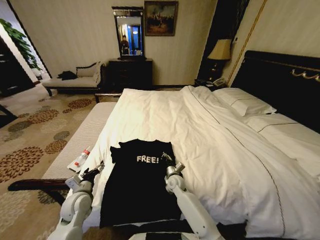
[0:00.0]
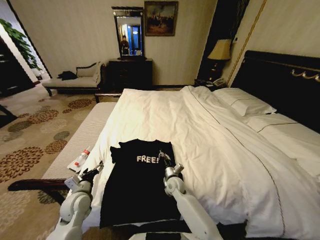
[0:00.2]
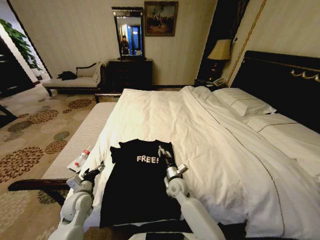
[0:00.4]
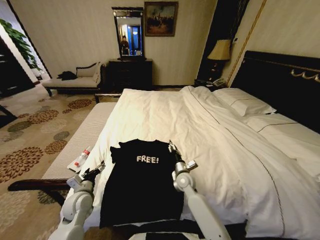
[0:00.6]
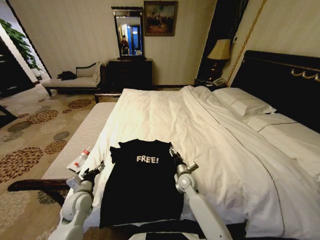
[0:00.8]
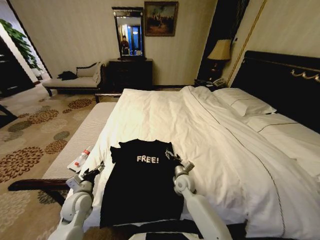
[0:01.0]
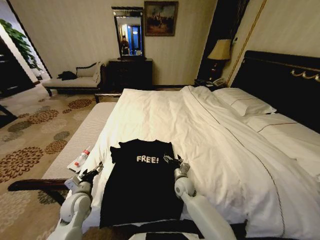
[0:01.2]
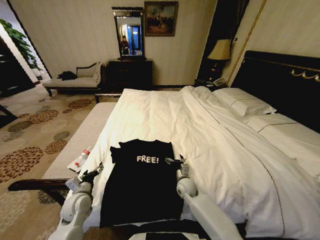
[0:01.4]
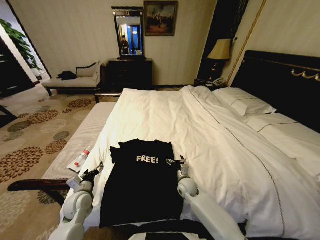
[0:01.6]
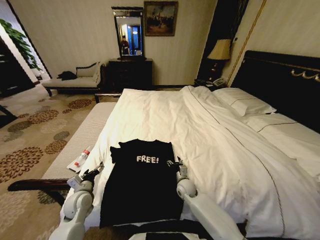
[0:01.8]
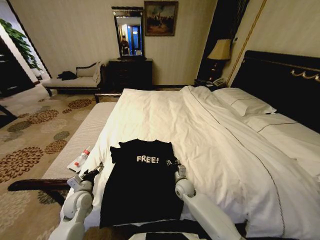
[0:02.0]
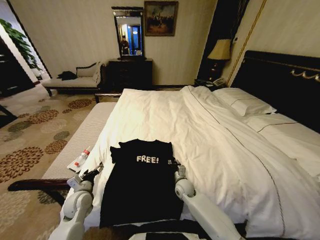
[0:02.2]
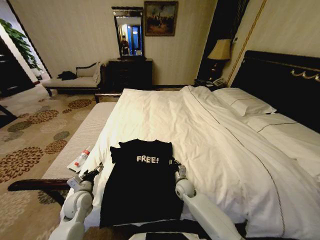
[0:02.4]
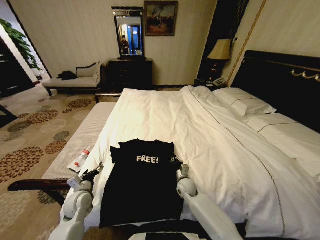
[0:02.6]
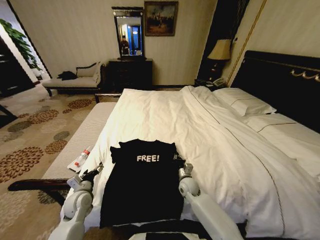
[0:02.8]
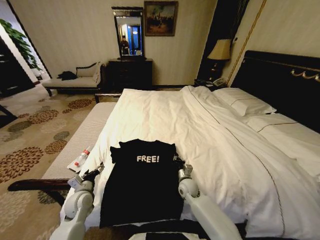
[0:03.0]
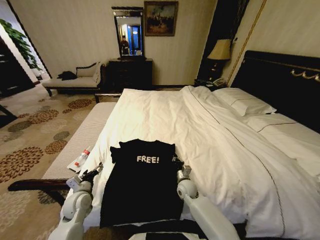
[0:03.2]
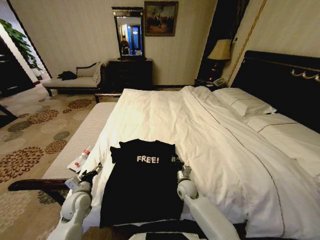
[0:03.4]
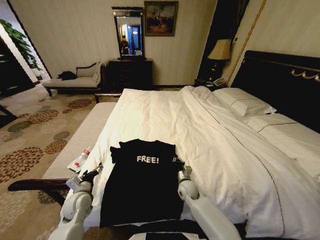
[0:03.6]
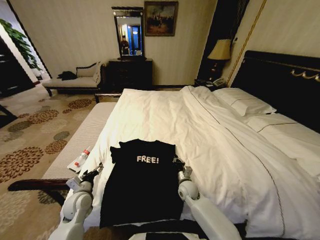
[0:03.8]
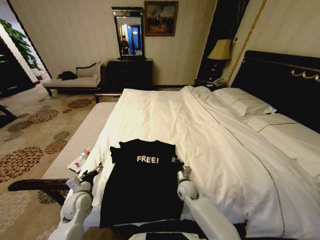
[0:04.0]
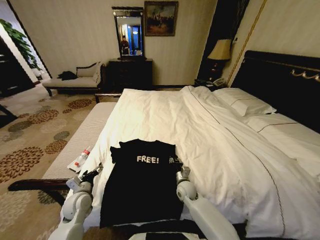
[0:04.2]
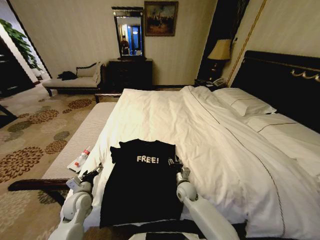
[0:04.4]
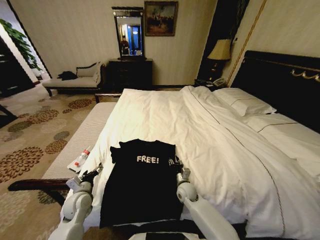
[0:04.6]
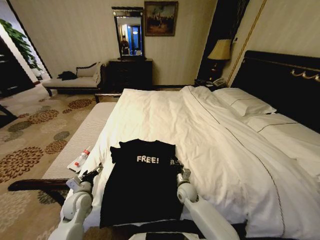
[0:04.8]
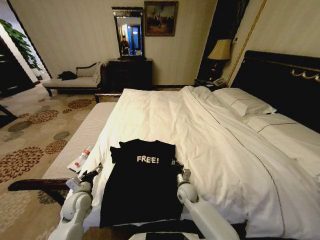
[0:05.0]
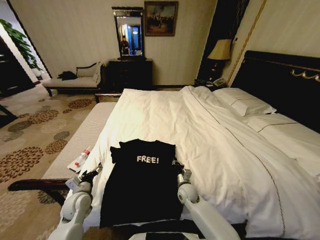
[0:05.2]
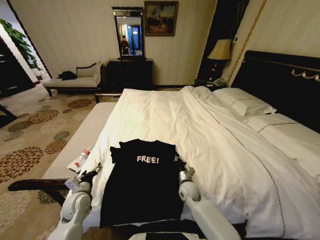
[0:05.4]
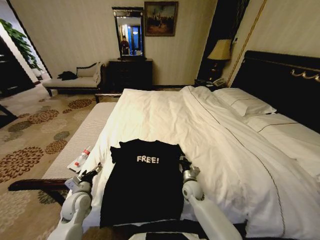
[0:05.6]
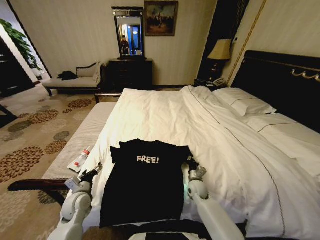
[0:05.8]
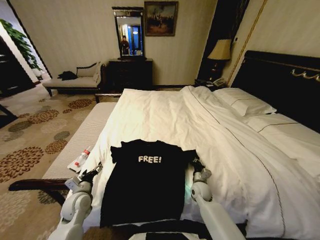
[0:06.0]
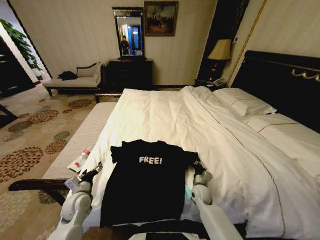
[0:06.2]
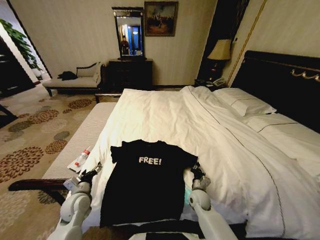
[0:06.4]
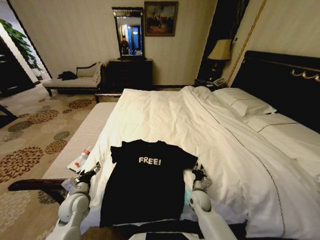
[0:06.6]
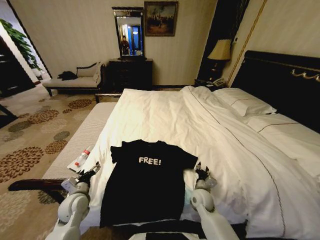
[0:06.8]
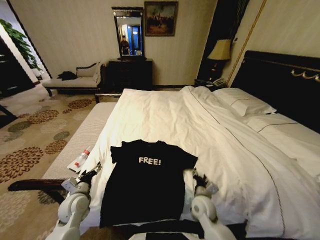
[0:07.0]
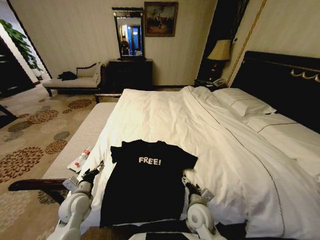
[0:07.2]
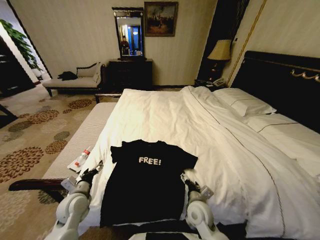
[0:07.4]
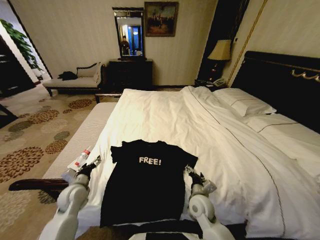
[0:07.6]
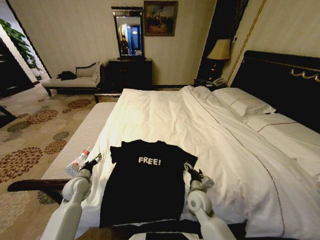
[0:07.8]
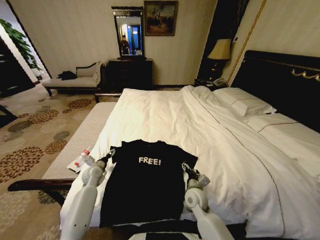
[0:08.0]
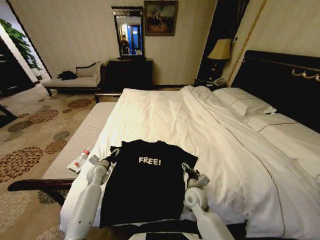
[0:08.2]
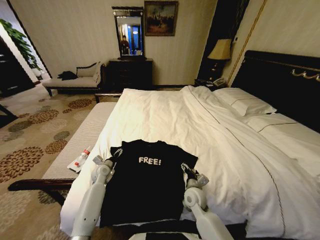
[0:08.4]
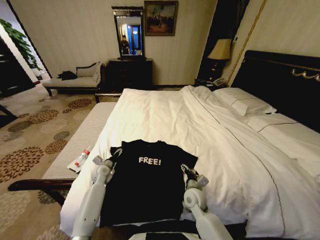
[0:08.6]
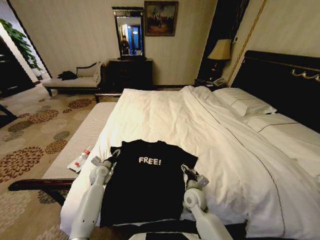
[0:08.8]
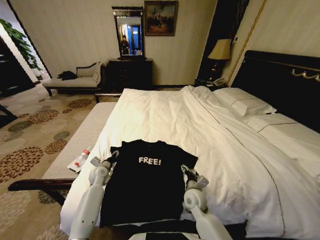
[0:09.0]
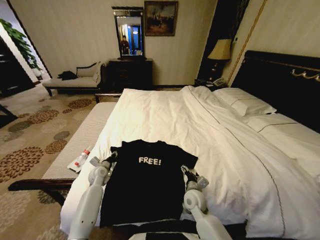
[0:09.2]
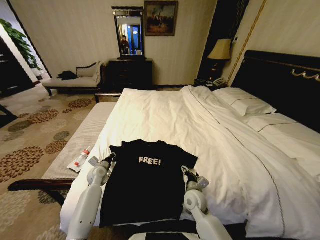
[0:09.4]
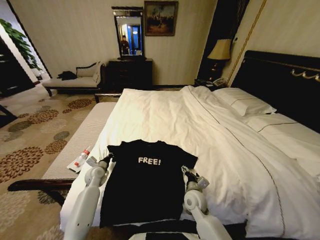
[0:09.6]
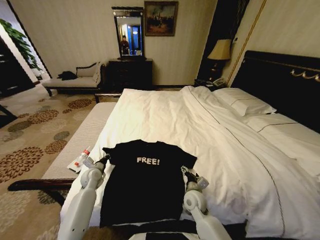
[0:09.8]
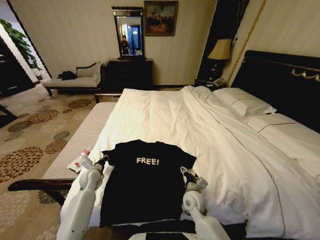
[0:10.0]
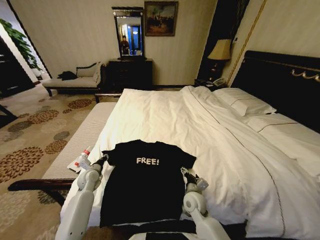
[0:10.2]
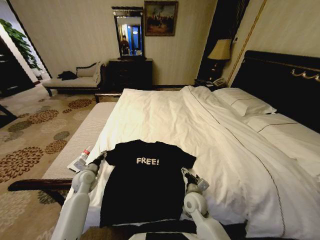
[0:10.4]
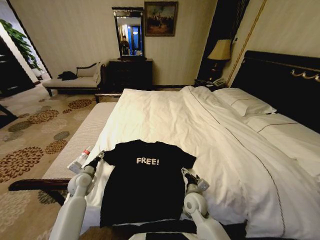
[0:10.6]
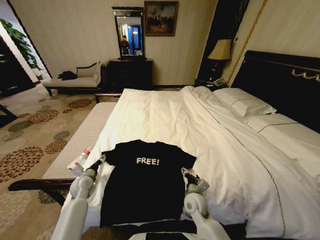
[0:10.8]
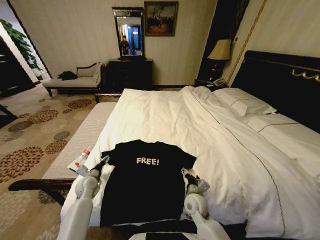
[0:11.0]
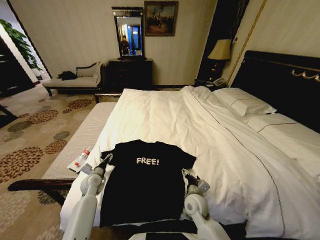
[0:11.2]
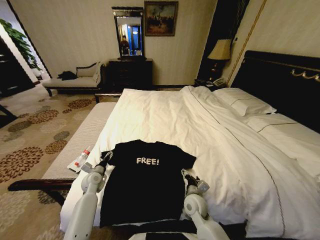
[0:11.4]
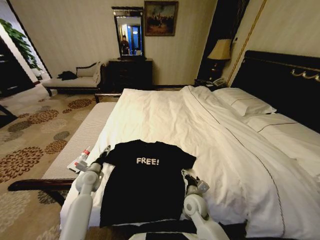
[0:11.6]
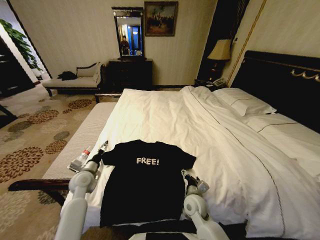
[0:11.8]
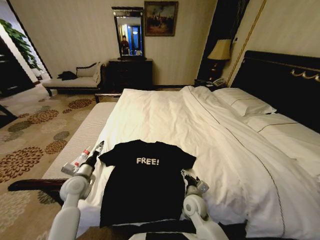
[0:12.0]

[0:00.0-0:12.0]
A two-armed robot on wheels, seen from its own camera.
Task of the whole recording: Fold the clothes on the bed.
0:00.0 to 0:01.6: The right gripper heads to the right, covering some 5 cm, and opens its fingers.
0:01.6 to 0:03.0: The right gripper closes up.
0:03.0 to 0:04.4: The right gripper opens its fingers.
0:04.4 to 0:06.0: The right gripper goes roughly 10 cm to the right, and closes.
0:06.0 to 0:07.6: The right gripper heads backward and upward, covering some 10 cm, and opens its fingers.
0:07.6 to 0:09.0: The left gripper shifts about 15 cm forward and downward, and closes its fingers.
0:09.0 to 0:10.4: The left gripper changes place by approximately 5 cm, and closes, then reopens.
0:10.4 to 0:12.0: The left gripper travels backward and upward by some 10 cm, and opens its fingers.

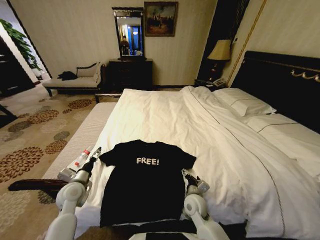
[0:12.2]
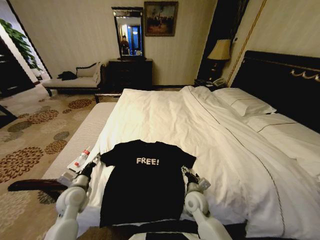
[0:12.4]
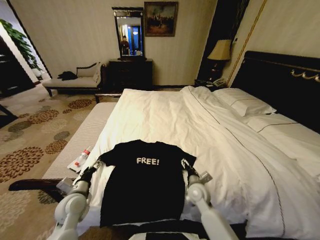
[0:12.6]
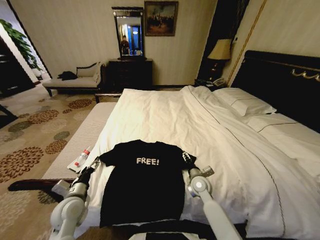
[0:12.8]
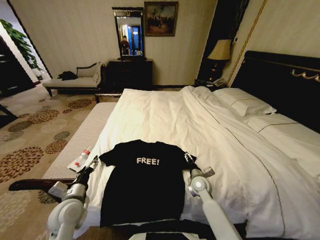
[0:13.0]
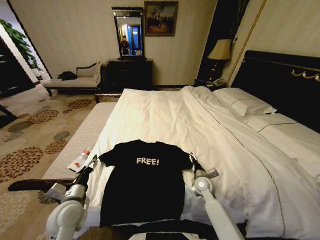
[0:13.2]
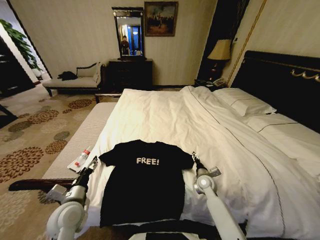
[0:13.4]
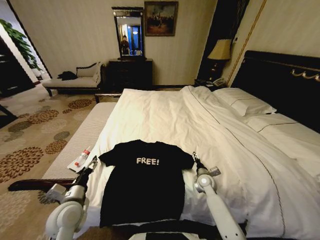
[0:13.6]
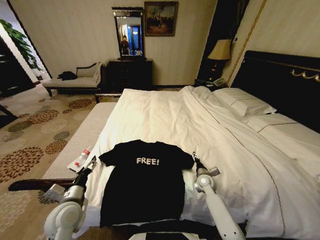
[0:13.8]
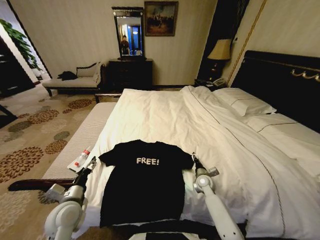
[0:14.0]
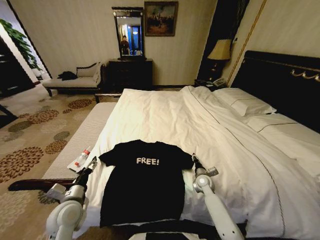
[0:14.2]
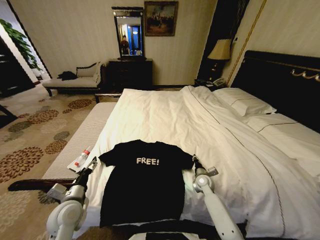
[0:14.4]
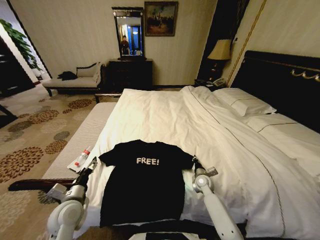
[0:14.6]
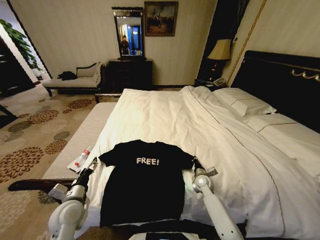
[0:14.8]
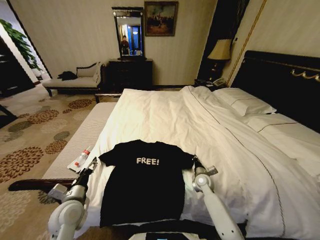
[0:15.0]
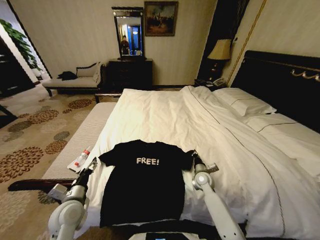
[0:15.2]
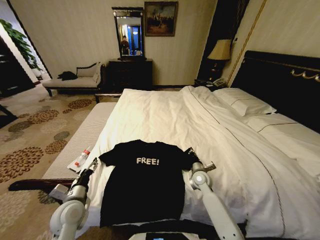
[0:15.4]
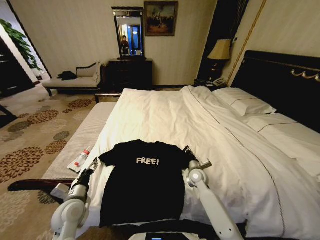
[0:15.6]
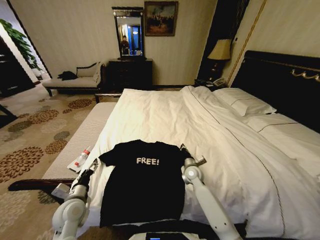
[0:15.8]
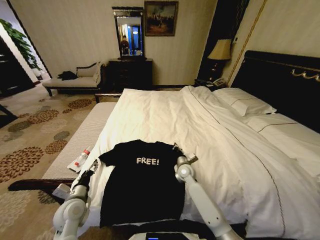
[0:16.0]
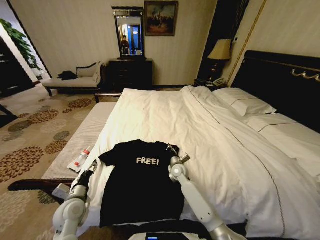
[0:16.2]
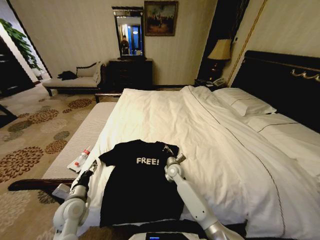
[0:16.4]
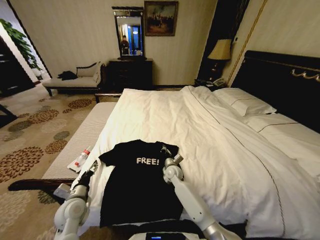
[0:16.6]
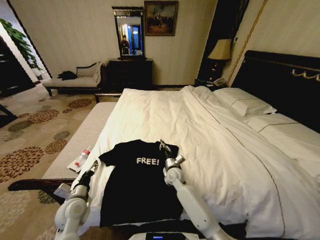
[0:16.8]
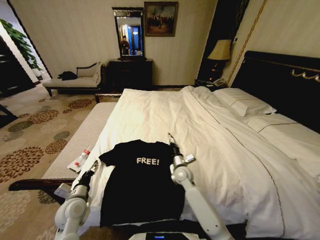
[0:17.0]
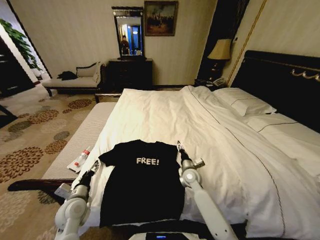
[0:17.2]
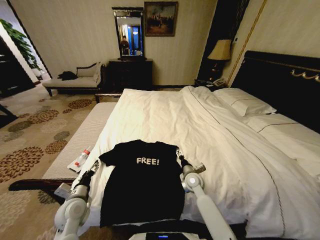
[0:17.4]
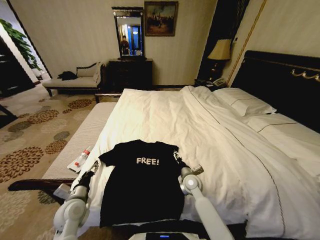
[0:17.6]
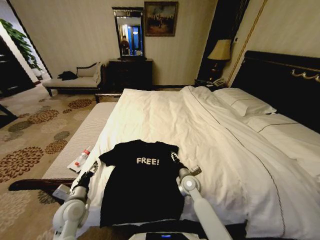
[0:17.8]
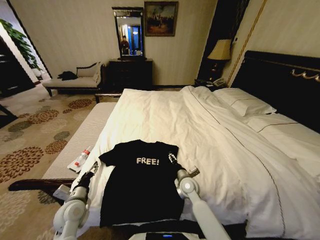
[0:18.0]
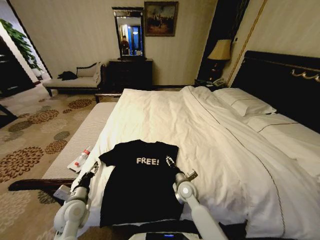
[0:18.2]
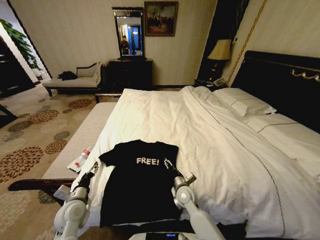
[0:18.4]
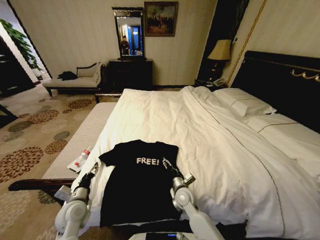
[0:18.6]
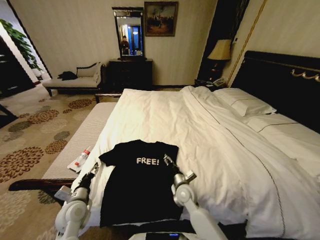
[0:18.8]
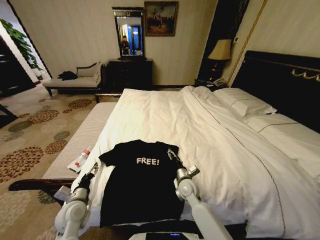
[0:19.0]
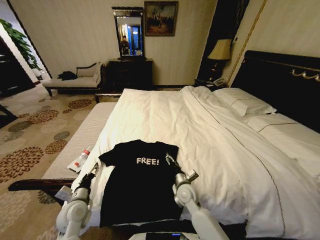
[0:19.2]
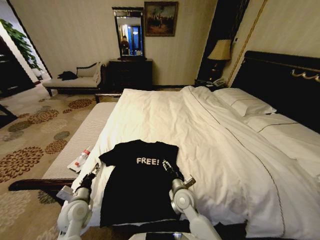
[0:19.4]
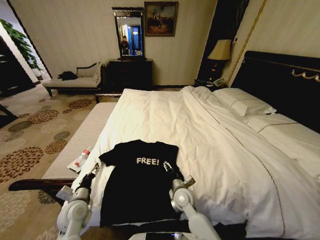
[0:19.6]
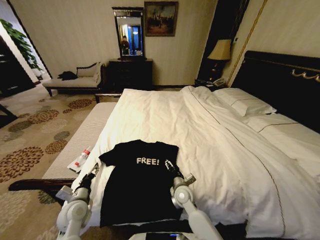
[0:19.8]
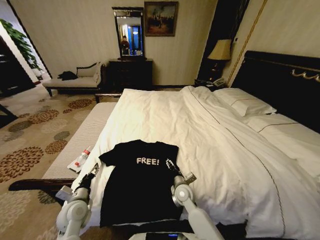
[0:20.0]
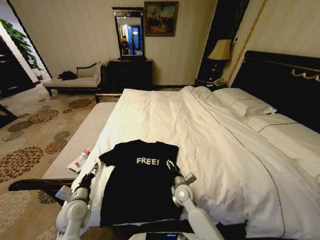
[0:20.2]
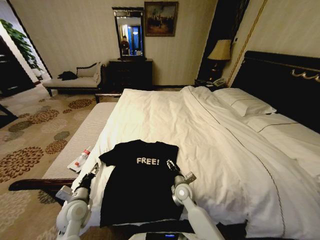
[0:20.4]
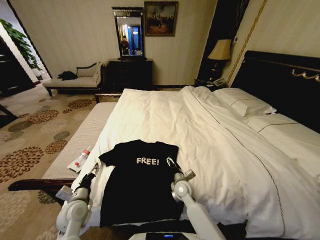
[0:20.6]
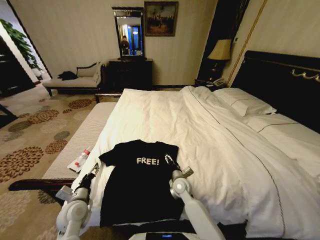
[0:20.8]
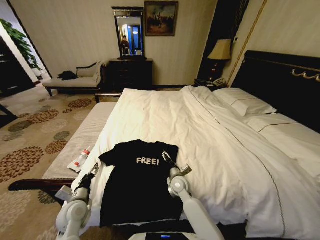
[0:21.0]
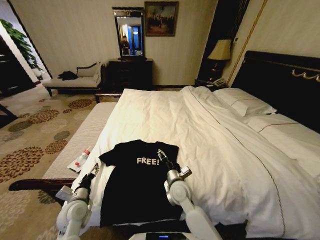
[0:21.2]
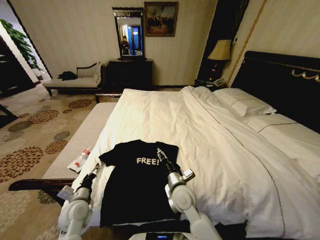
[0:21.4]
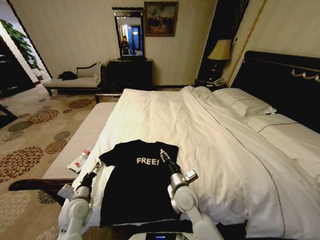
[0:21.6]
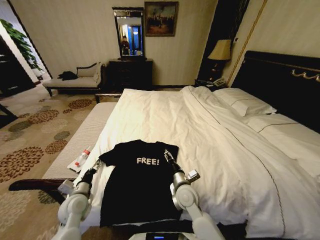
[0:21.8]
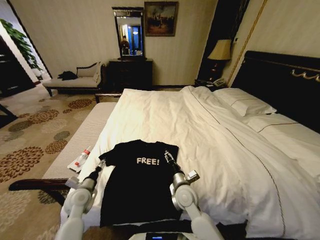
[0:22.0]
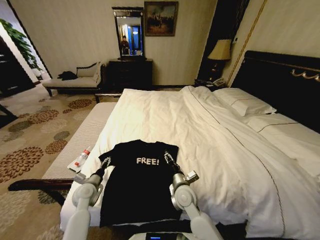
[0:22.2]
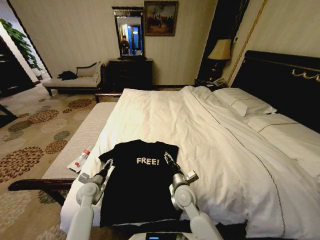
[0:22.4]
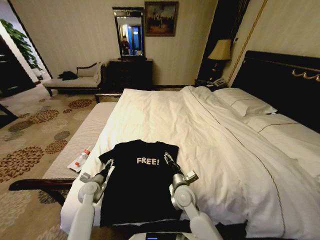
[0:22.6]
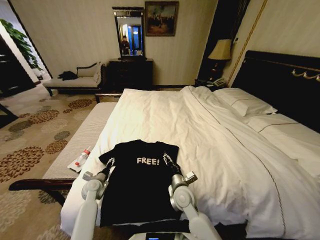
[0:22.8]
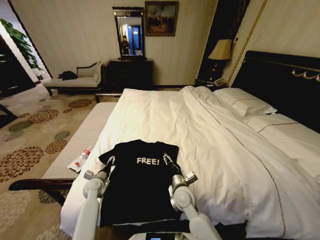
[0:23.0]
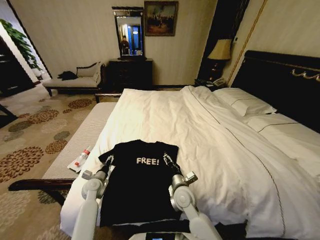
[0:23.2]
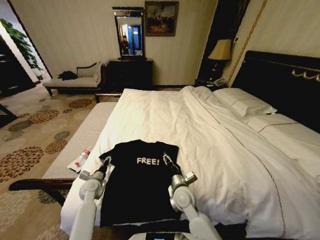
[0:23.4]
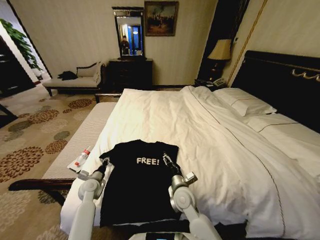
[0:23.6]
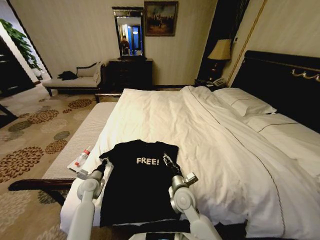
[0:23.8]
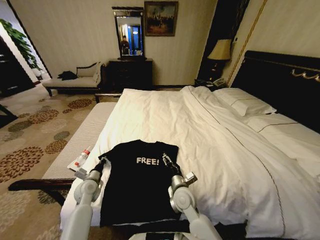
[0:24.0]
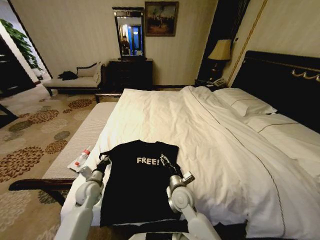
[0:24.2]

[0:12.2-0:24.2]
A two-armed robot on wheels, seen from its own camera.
Task of the whole recording: Fold the clothes on the bed.
0:12.2 to 0:13.8: The right gripper heads forward and to the right, covering roughly 15 cm, while the left gripper moves backward, about 10 cm.
0:13.8 to 0:15.2: The right gripper closes its fingers.
0:15.2 to 0:16.6: The right gripper goes roughly 15 cm to the left.
0:16.6 to 0:18.2: The right gripper goes about 10 cm backward, and opens its fingers.
0:18.2 to 0:19.8: There are only small adjustments of the grippers.
0:19.8 to 0:21.2: The right gripper moves upward, roughly 5 cm.
0:21.2 to 0:22.6: The left gripper heads forward and downward, covering some 10 cm.
0:22.6 to 0:24.2: The left gripper closes up.
